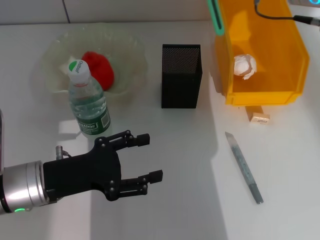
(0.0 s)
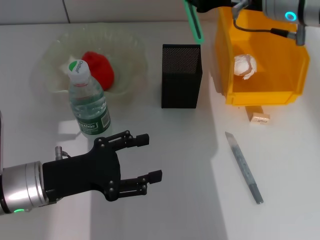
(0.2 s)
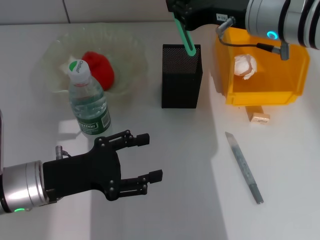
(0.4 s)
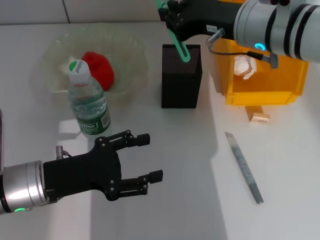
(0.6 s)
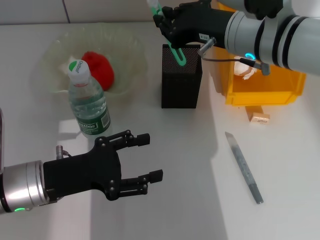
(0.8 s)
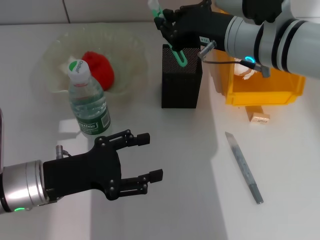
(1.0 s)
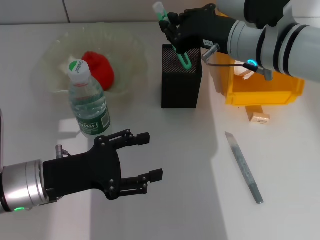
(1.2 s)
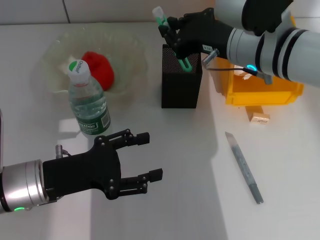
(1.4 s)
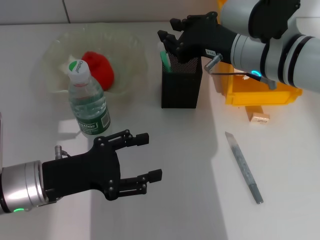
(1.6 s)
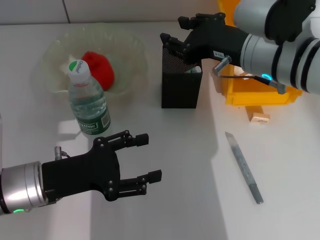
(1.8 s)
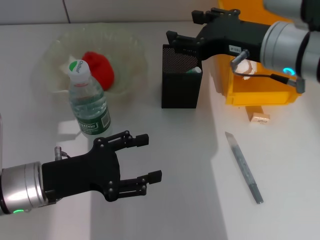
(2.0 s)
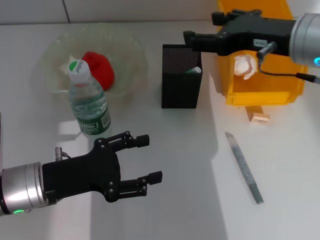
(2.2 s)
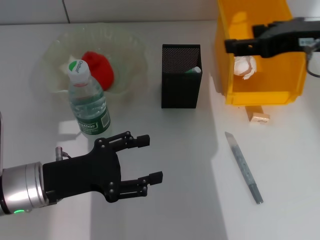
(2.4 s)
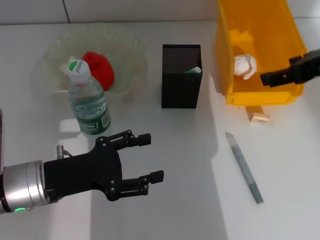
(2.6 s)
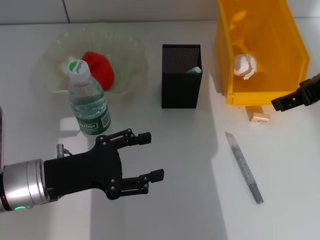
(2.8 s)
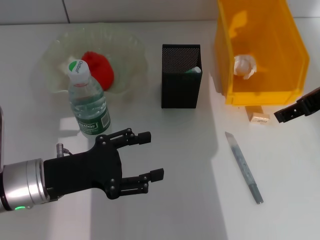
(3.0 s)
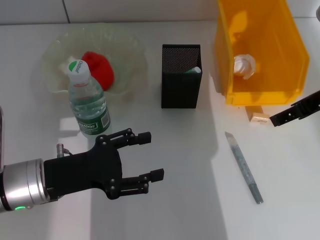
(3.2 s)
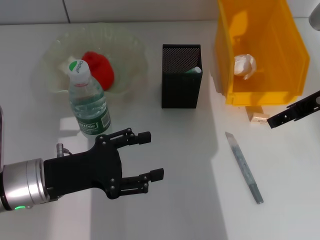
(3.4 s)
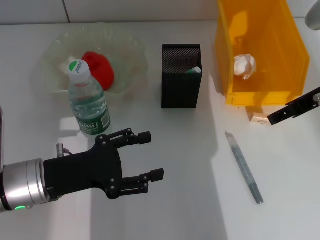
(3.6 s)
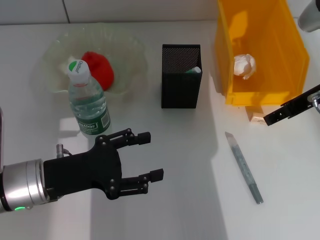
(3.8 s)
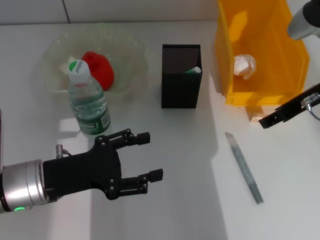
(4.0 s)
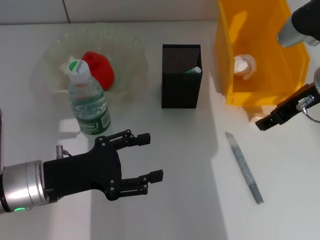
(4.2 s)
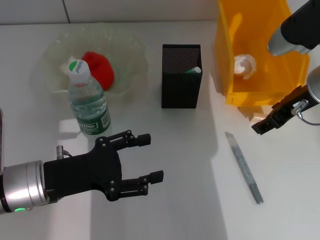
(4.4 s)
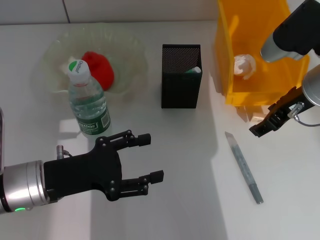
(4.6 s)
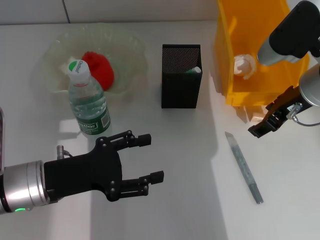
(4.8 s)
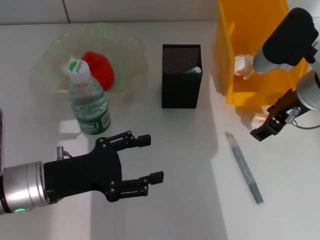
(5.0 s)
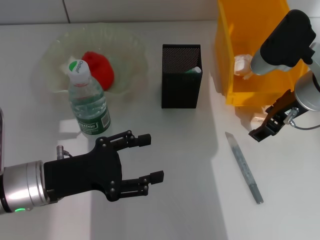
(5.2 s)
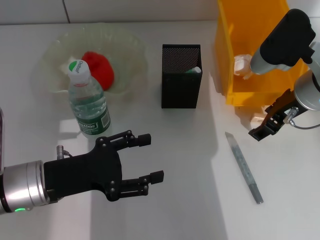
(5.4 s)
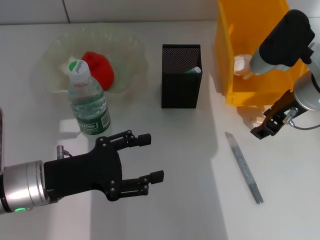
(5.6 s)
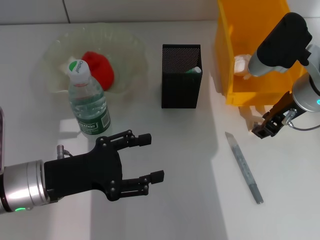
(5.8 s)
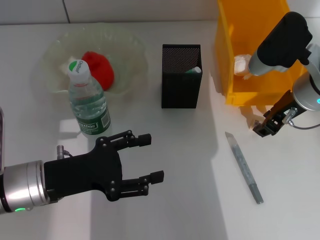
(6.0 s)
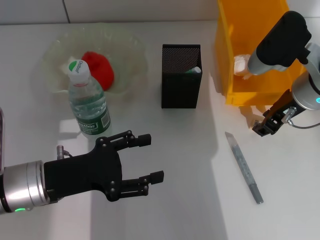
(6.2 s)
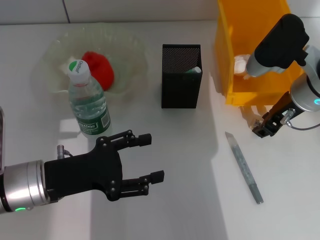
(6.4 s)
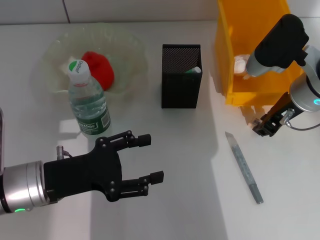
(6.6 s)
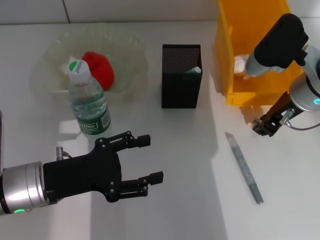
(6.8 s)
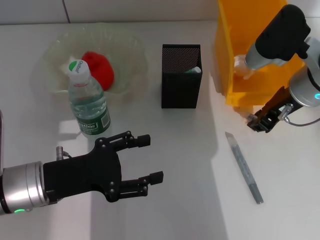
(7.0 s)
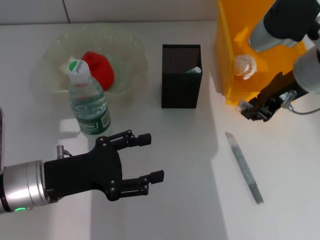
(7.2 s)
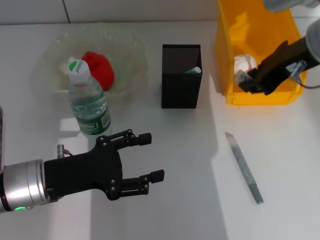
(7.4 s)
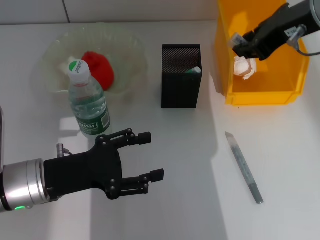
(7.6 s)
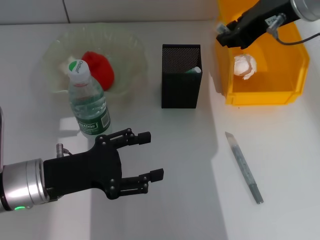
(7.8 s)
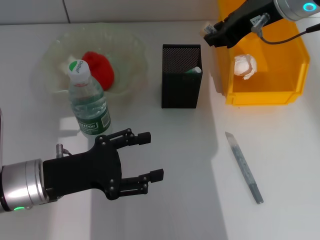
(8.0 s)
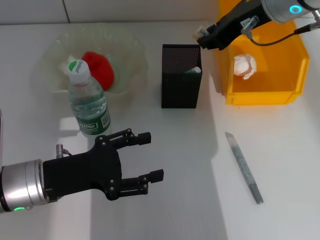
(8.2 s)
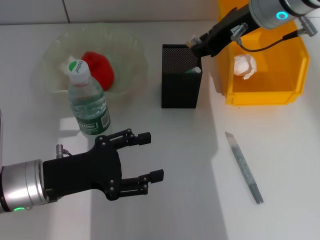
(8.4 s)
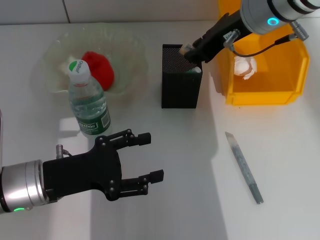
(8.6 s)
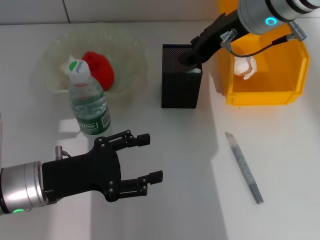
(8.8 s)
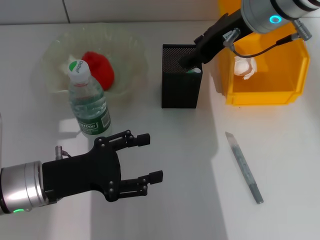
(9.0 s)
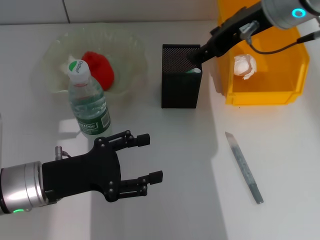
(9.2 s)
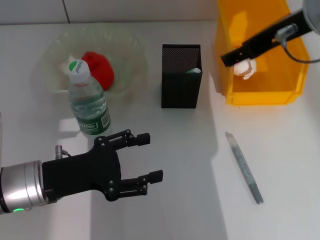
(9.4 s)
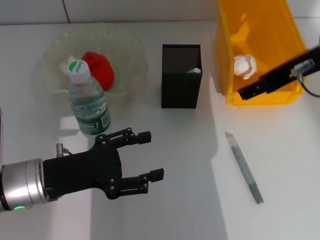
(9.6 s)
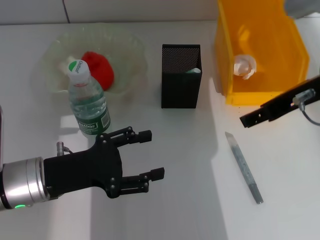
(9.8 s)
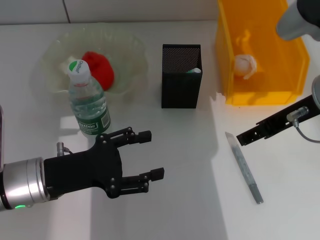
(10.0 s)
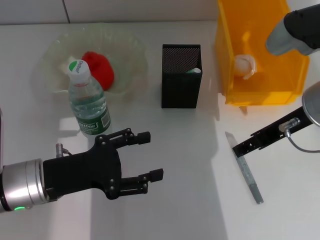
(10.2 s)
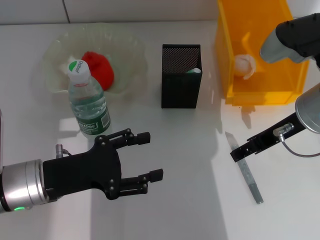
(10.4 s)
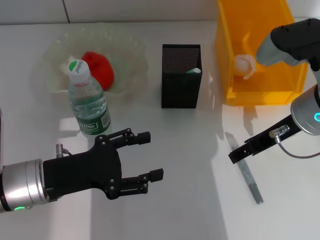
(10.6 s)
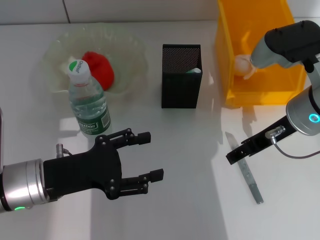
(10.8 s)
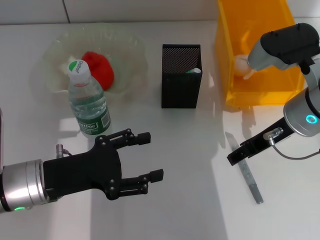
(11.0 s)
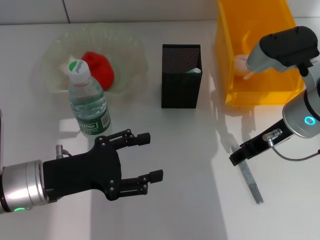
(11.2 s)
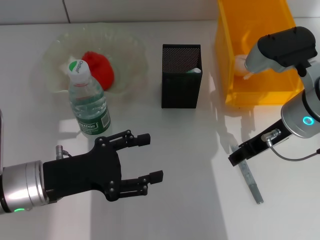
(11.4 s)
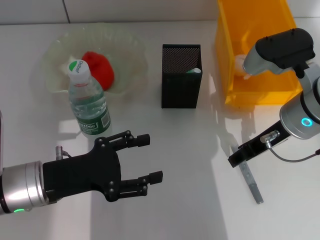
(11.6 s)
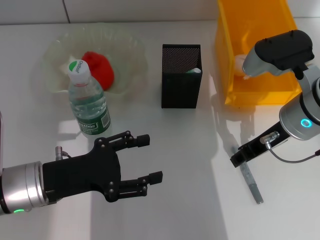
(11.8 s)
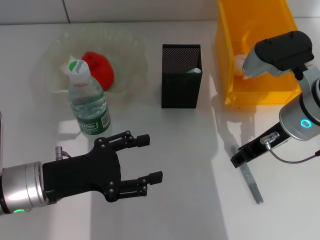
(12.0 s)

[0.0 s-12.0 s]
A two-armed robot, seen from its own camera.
Step, 0.0 to 1.8 s: Place the blue utility knife into the pen holder with the right hand.
Step, 2.0 to 6.6 s: Grab the eraser with the right hand.
Step, 6.8 to 8.6 s: Put the eraser into the pen holder with the right hand.
0.0 to 1.6 s: The right gripper moves downward, about 10 cm.
1.6 to 3.0 s: The right gripper heads to the right, covering some 10 cm, and opens its fingers.
3.0 to 4.4 s: The right gripper moves downward, some 5 cm.
4.4 to 6.0 s: The right gripper closes.
6.0 to 7.6 s: The right gripper moves upward, approximately 15 cm.
7.6 to 9.0 s: The right gripper is displaced to the left by approximately 5 cm.
9.0 to 10.4 s: The right gripper heads backward, downward and to the right, covering about 15 cm, and opens.
10.4 to 12.0 s: The right gripper closes its fingers.

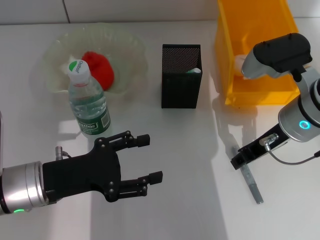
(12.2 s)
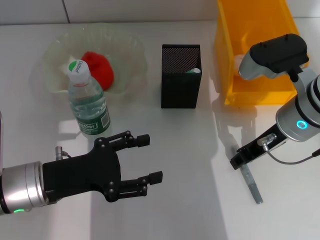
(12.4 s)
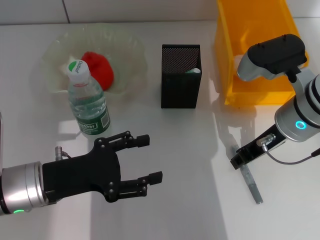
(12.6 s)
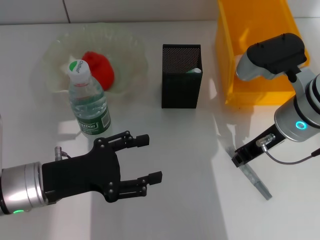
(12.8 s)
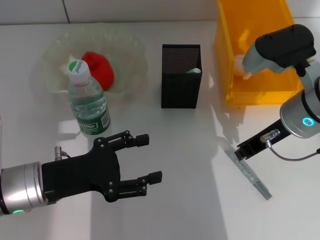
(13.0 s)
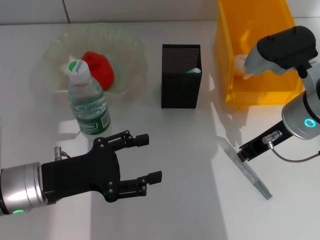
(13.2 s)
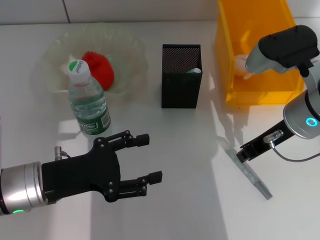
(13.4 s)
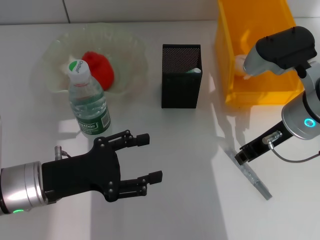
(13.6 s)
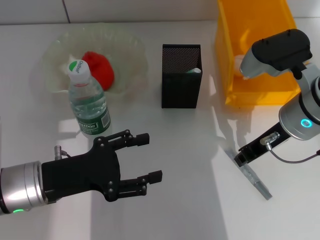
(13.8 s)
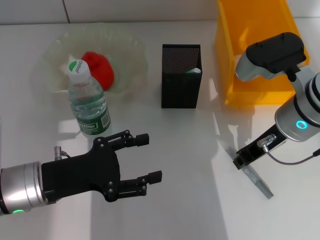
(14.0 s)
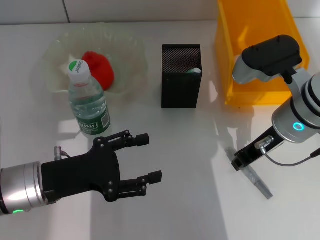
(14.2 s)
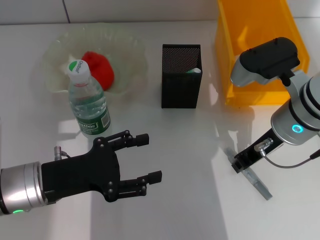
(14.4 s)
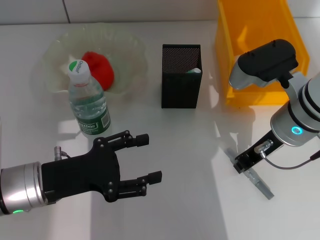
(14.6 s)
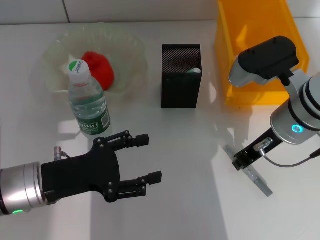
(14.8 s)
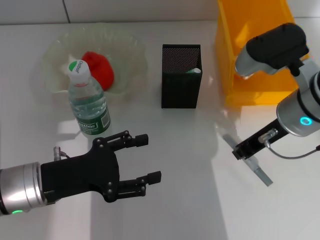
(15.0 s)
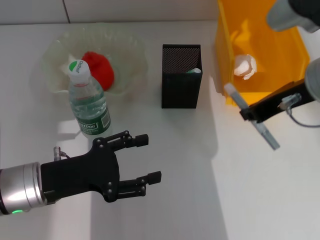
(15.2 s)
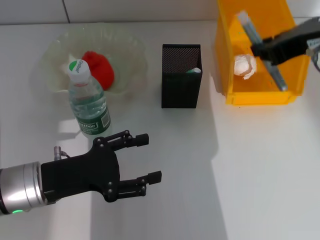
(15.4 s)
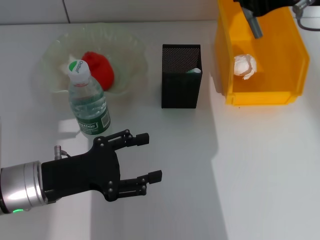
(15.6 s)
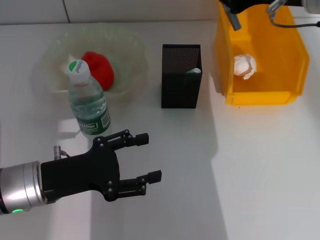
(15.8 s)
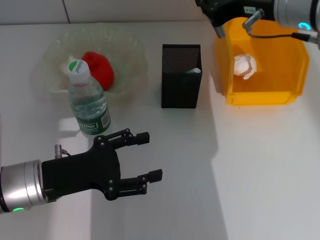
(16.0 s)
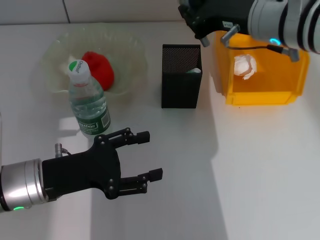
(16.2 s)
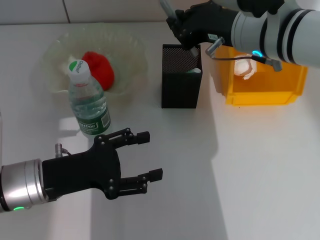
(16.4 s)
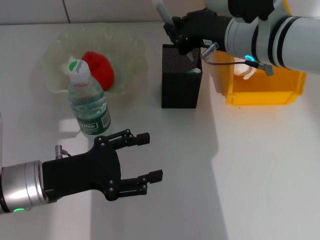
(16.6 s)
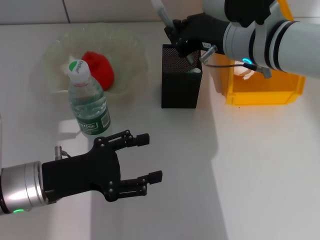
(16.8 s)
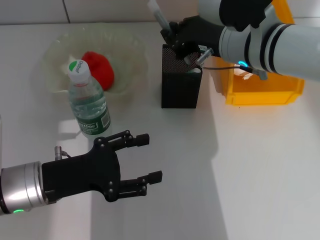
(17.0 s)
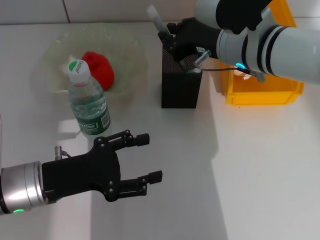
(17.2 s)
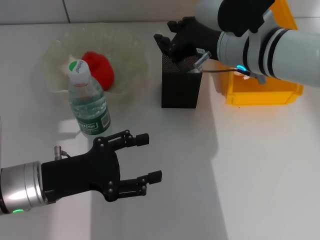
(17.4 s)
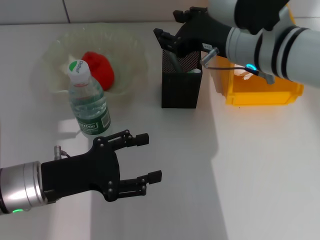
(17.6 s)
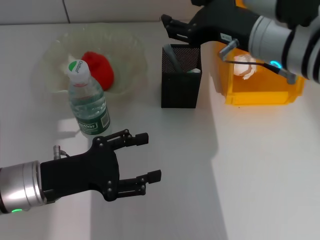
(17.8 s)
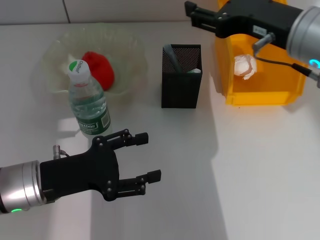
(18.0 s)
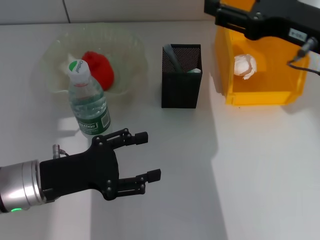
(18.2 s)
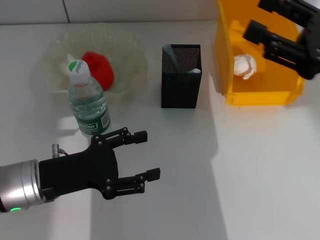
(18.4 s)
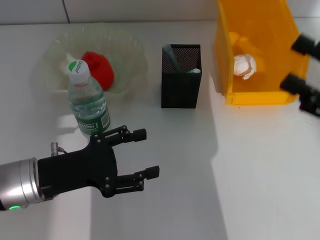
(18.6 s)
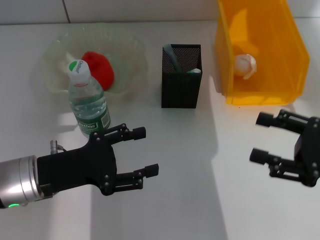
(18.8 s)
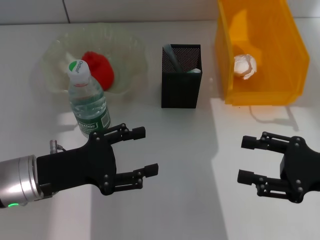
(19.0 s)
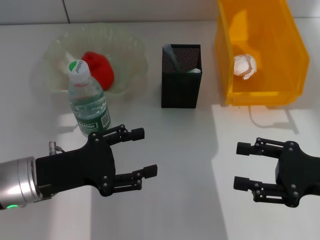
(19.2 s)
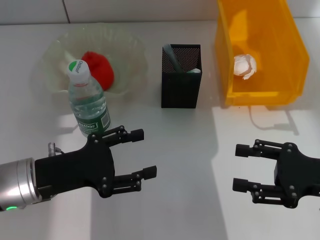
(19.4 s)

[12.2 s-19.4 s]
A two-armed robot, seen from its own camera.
Step, 12.2 to 14.4 s: Grab the gray glue with the right hand.
Step, 14.6 to 17.4 s: Place the gray glue into the pen holder with the right hand.
12.2 to 13.6 s: The right gripper closes.
13.6 to 15.0 s: The grippers stay close to where they were, moving slightly.
15.0 to 16.6 s: The right gripper heads forward, covering approximately 5 cm, and goes upward and returns, roughly 15 cm each way.
16.6 to 18.0 s: The right gripper goes approximately 10 cm backward and to the right, and opens its fingers.
18.0 to 19.4 s: The right gripper shifts approximately 20 cm downward, to the right and backward.

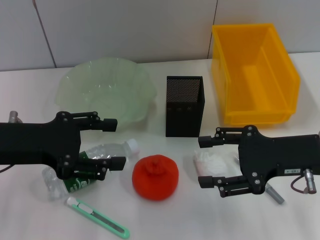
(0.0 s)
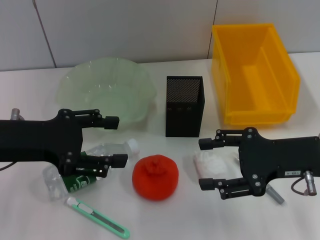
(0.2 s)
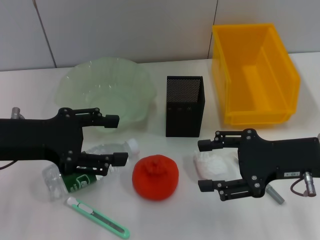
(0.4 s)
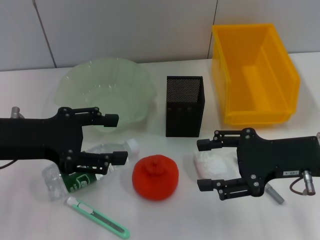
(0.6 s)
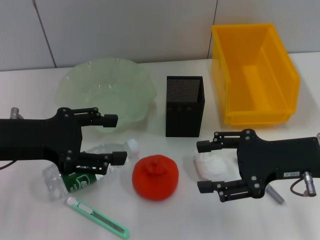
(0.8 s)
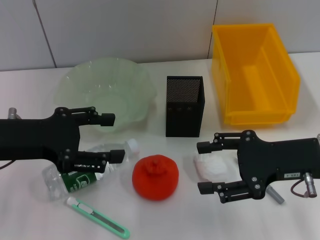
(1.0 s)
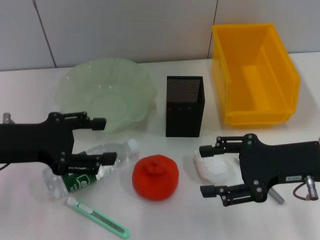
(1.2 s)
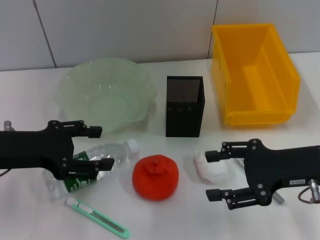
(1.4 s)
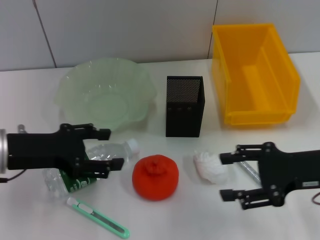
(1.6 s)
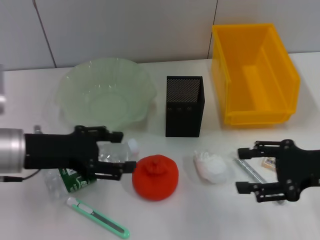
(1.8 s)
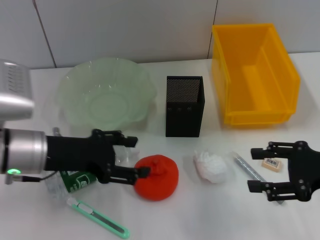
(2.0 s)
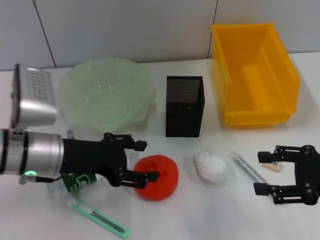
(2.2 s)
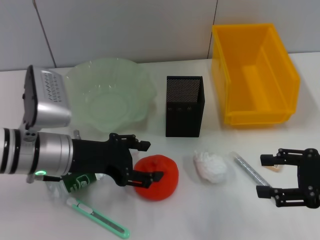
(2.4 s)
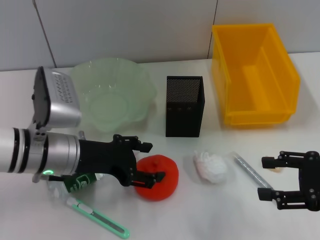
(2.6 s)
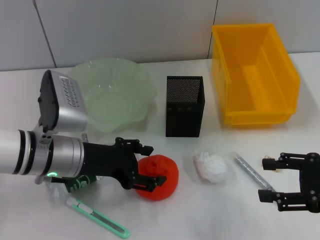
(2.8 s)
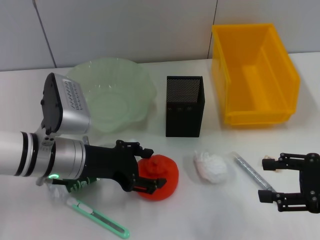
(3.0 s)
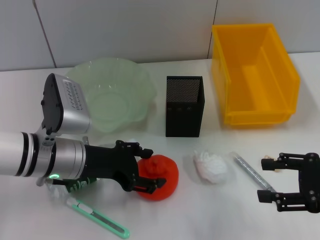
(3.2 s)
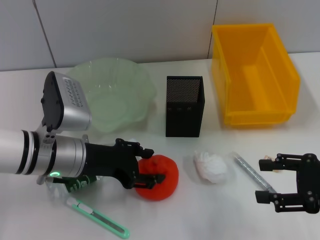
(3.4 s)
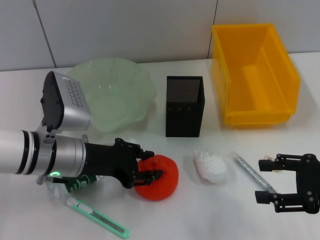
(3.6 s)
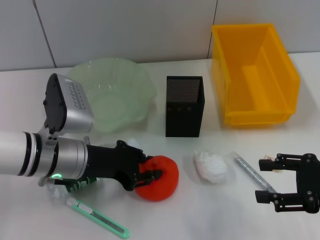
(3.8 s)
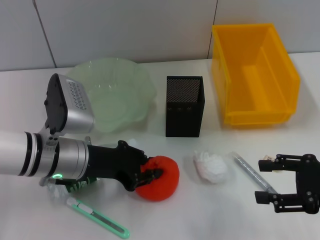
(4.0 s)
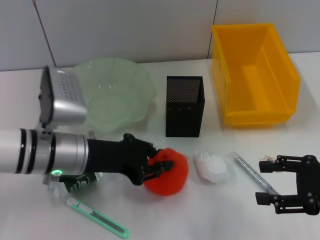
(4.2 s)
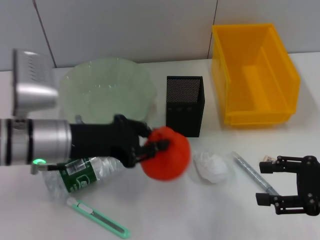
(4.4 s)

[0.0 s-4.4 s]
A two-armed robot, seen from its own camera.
Step, 0.0 to 3.8 s: Grab the orange with the left hand.
0.0 to 1.4 s: The grippers make only small movements.
1.4 to 3.0 s: The left gripper shifts roughly 10 cm to the right and downward; the right gripper moves to the right, roughly 5 cm.
3.0 to 4.4 s: The left gripper closes.
